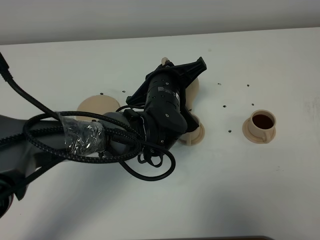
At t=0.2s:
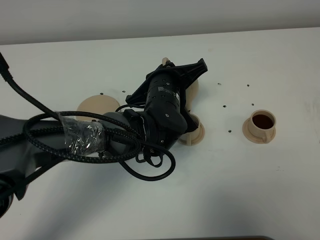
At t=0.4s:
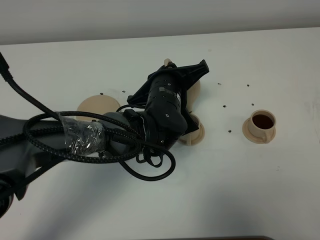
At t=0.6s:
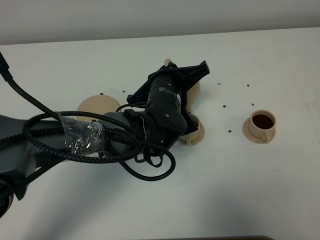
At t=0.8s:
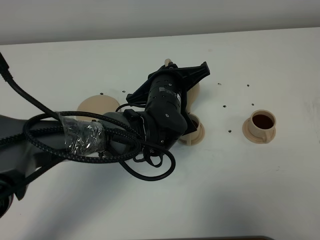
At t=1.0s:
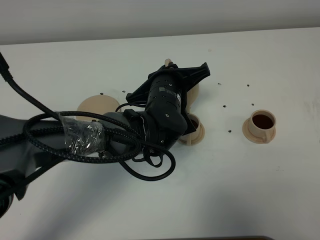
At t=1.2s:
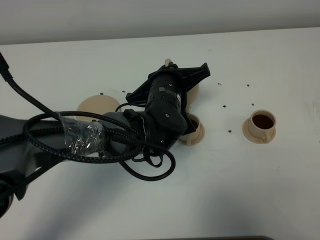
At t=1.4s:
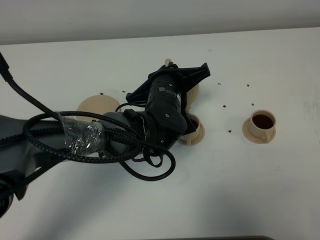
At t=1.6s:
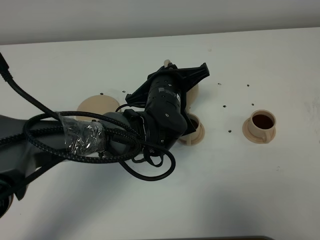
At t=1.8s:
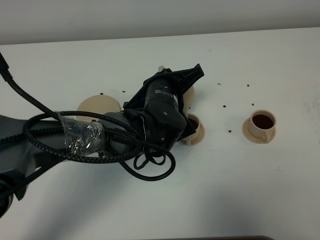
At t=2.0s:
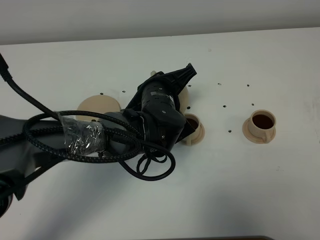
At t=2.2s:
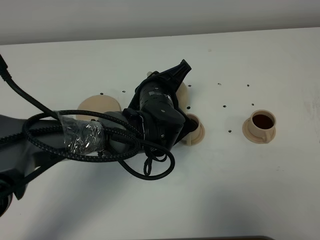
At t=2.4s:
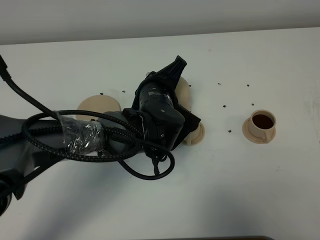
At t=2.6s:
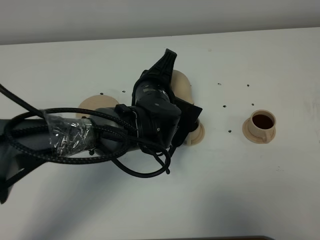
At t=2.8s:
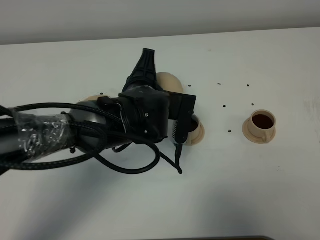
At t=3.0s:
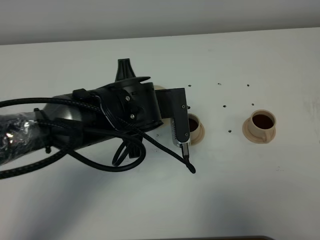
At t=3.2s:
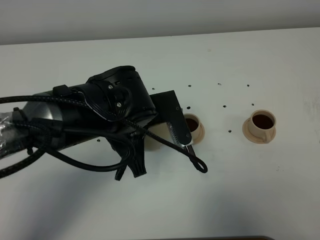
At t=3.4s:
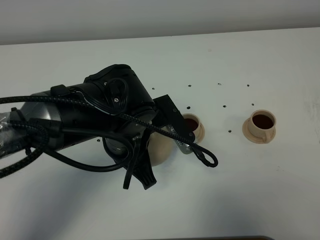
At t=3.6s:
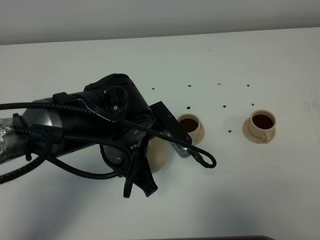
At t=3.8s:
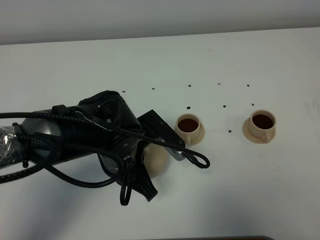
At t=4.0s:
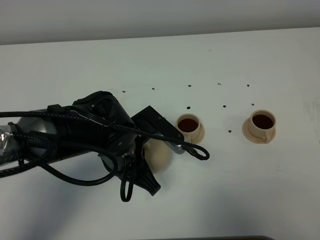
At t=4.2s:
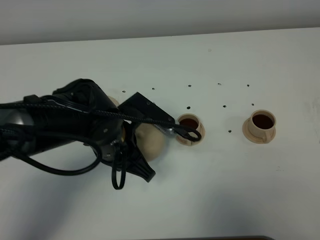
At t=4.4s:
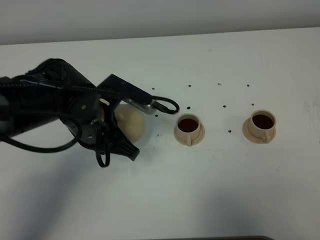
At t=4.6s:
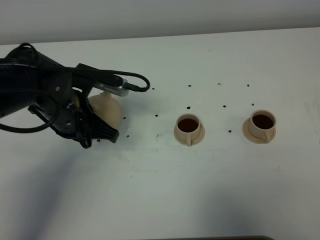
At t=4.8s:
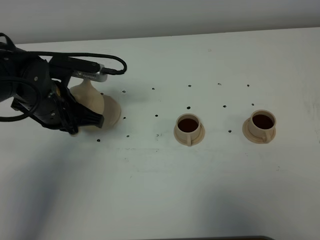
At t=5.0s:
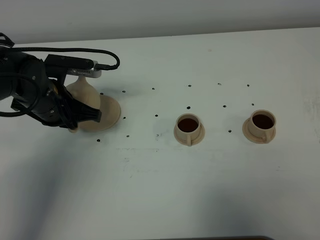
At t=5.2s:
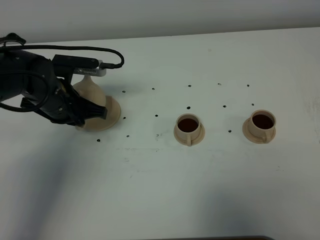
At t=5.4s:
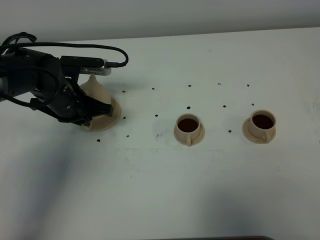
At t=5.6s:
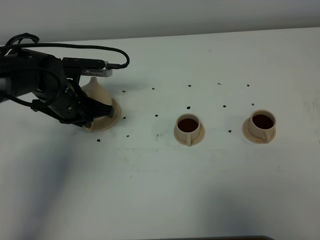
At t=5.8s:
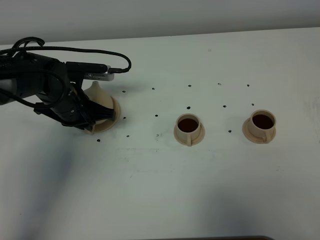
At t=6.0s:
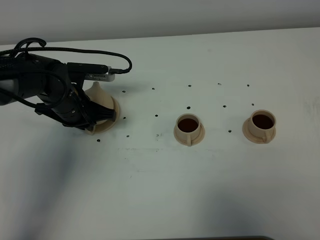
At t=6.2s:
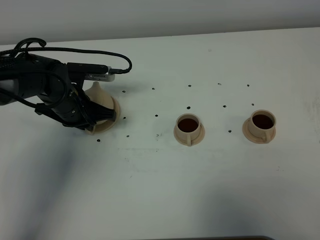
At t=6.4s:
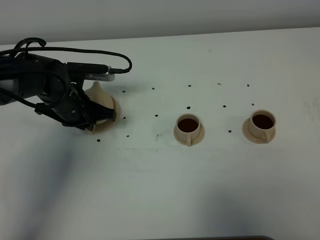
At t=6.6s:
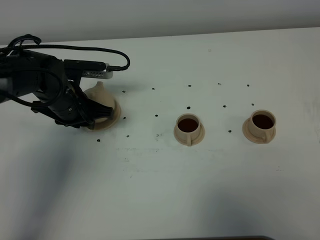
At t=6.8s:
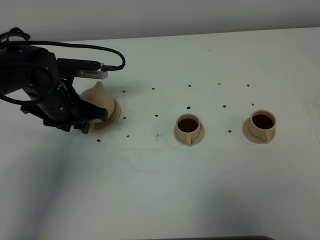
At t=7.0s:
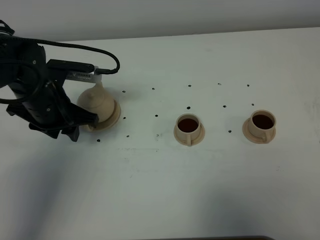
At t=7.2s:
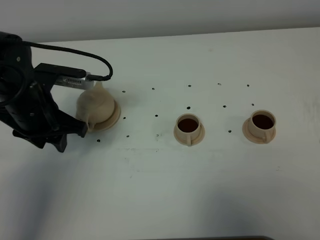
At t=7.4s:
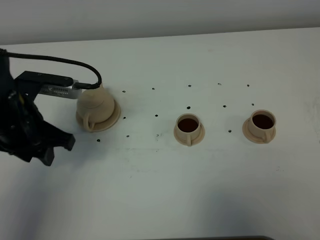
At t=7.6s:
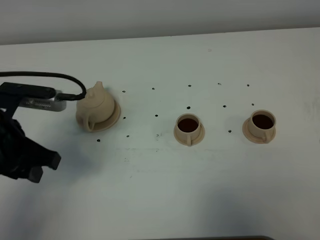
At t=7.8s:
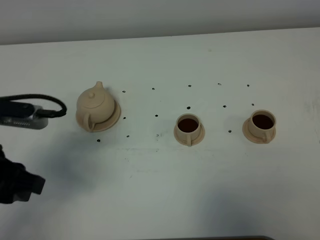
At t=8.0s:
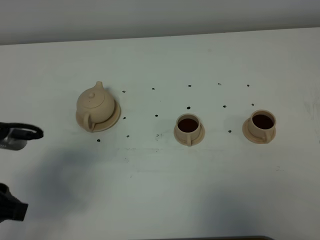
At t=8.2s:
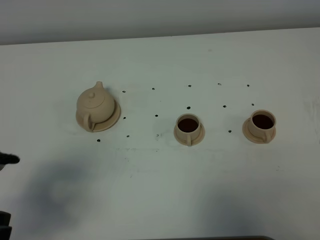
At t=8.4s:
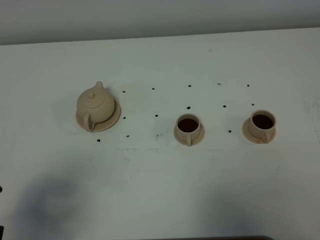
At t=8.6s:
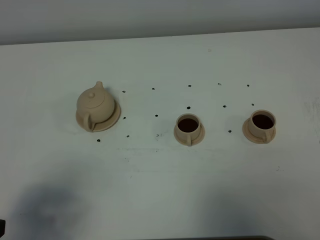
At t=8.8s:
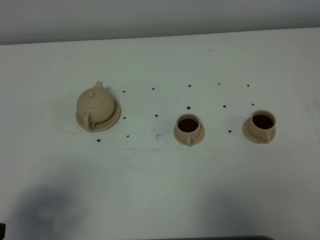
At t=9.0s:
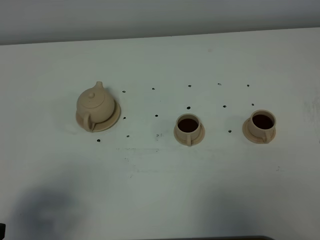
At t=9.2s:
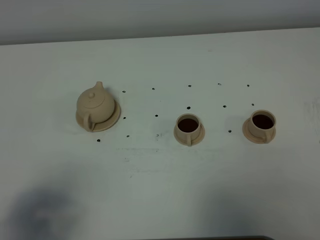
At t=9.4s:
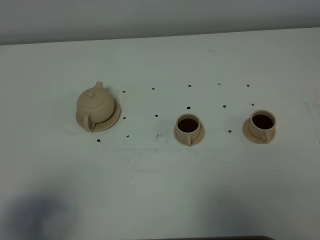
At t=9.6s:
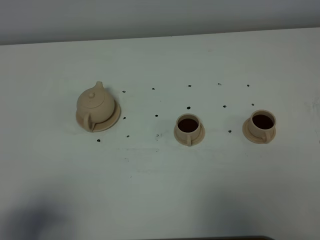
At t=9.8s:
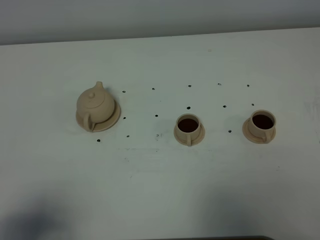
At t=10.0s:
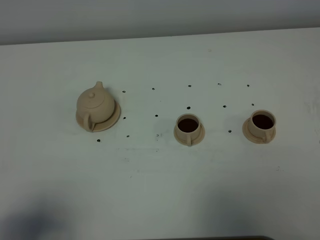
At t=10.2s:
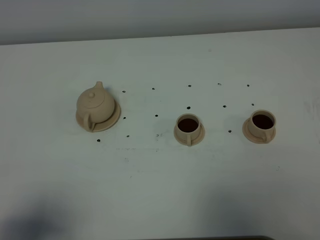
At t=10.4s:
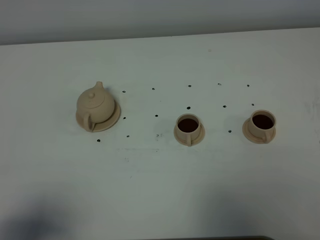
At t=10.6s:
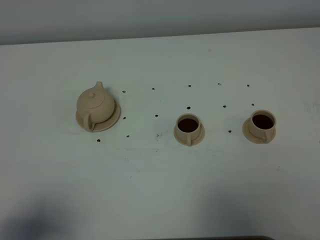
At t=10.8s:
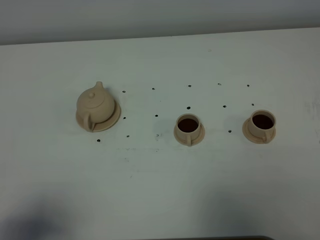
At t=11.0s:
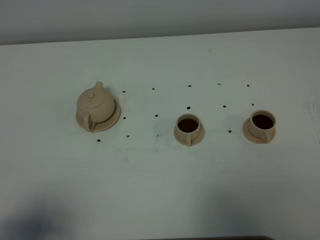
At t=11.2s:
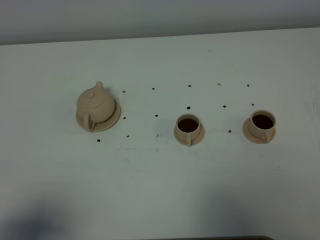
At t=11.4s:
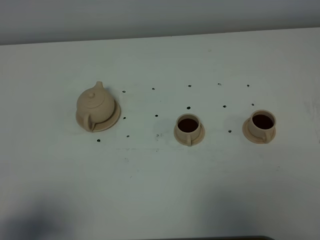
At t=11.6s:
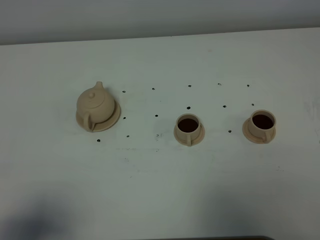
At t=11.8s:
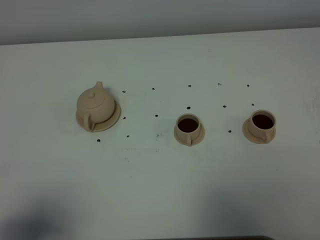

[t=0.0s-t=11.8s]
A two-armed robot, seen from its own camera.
Task of the whole recording: grasp the brown teapot and pour the tea into the two brown teacups one by one, put the brown teapot back in its original place.
Step, t=0.0s to t=2.2s: Pour tea into the teacup with the left gripper.
t=0.0s to t=1.4s: There are only small adjustments of the grippers.
t=1.4s to t=3.0s: The left gripper travels upward by some 5 cm.
t=3.0s to t=4.4s: The left gripper heads to the left, covering roughly 10 cm.
t=4.4s to t=6.0s: The left gripper heads forward, to the left and downward, covering some 15 cm.
t=6.0s to t=7.4s: The left gripper travels backward and upward by roughly 15 cm, and opens up.
t=7.4s to t=8.8s: The left gripper goes roughly 20 cm backward.
t=10.4s to t=11.8s: Neither gripper changes place.
